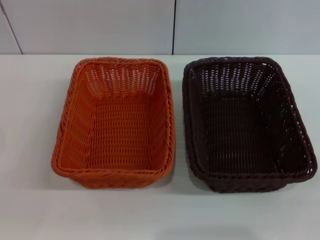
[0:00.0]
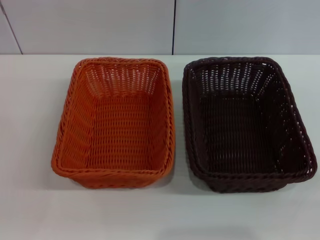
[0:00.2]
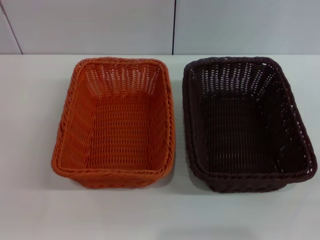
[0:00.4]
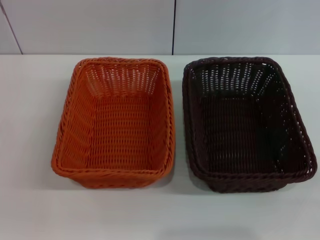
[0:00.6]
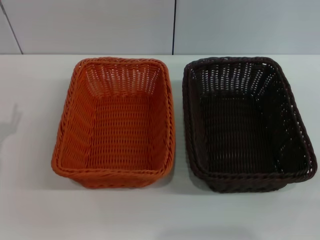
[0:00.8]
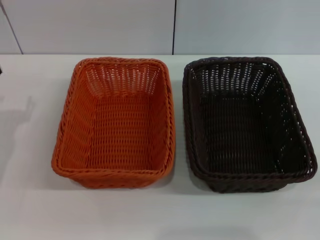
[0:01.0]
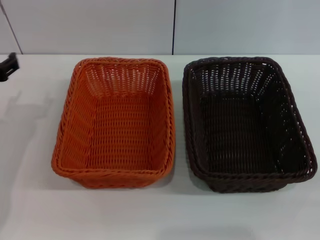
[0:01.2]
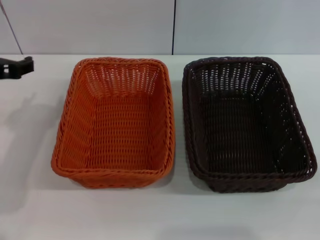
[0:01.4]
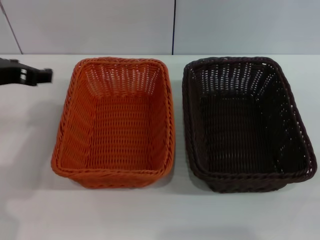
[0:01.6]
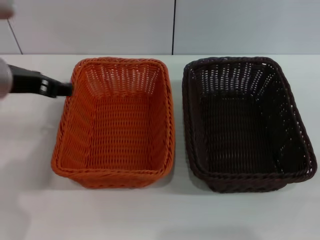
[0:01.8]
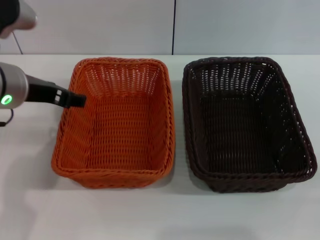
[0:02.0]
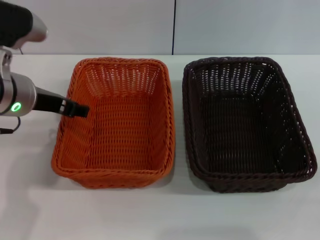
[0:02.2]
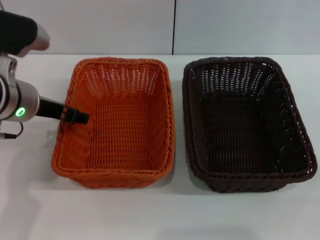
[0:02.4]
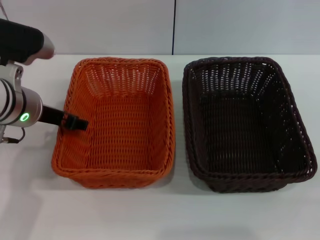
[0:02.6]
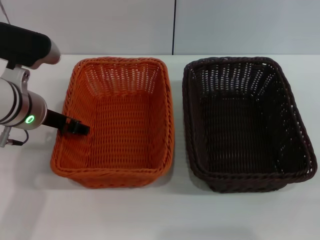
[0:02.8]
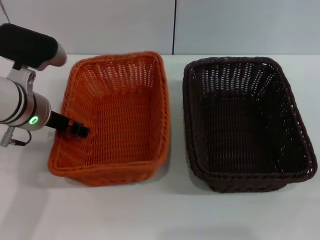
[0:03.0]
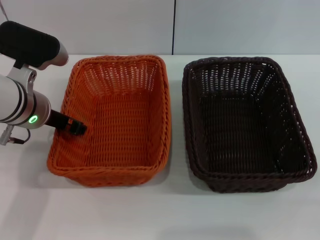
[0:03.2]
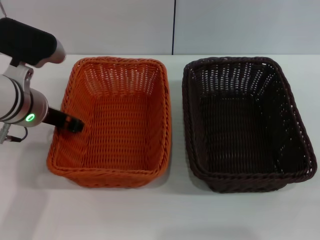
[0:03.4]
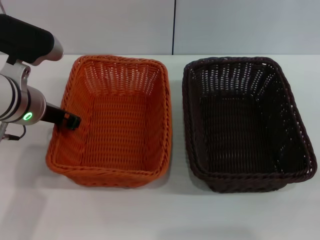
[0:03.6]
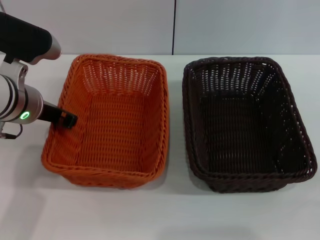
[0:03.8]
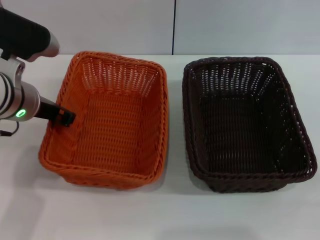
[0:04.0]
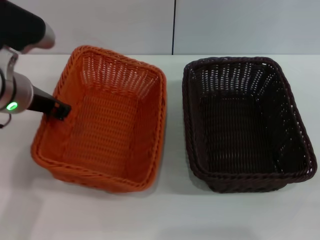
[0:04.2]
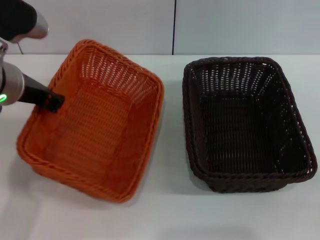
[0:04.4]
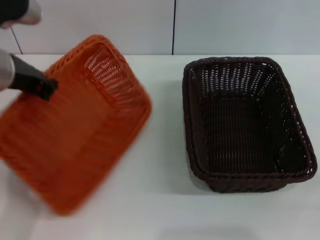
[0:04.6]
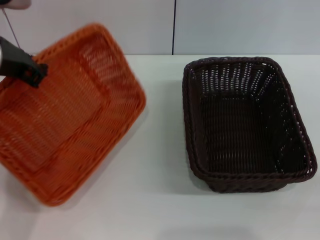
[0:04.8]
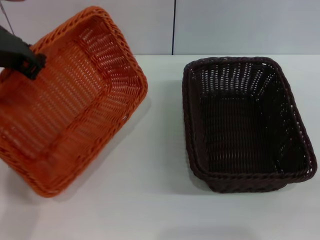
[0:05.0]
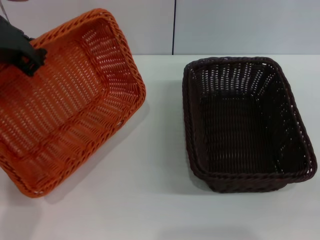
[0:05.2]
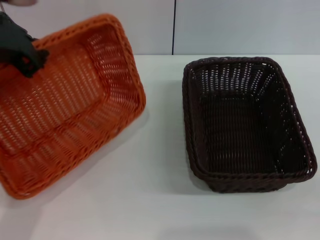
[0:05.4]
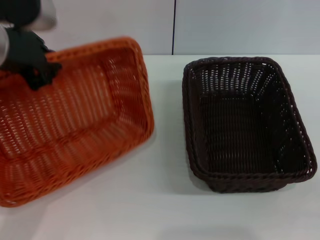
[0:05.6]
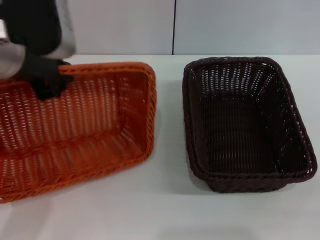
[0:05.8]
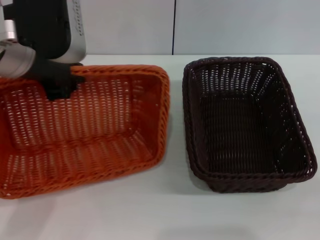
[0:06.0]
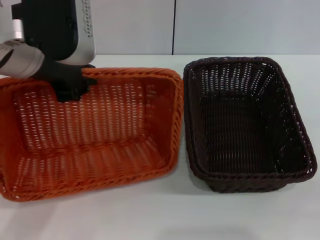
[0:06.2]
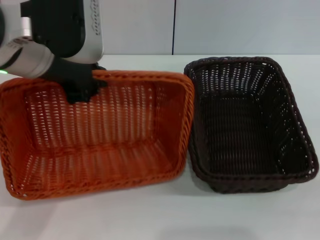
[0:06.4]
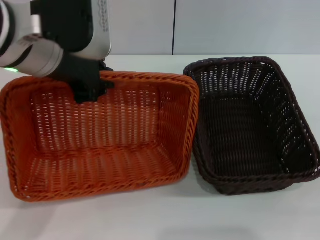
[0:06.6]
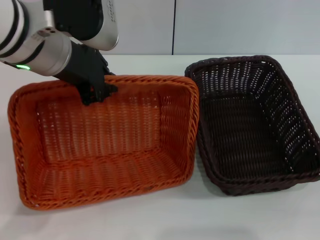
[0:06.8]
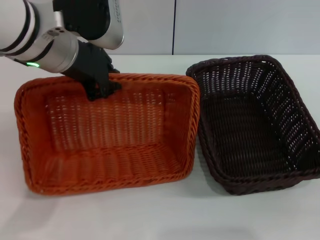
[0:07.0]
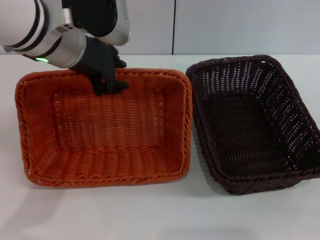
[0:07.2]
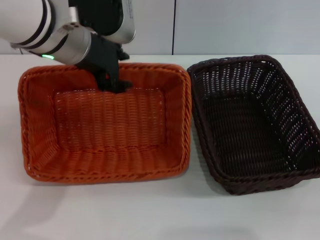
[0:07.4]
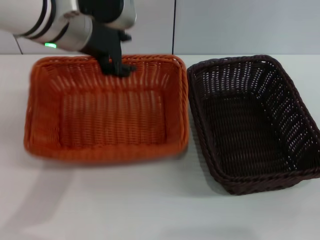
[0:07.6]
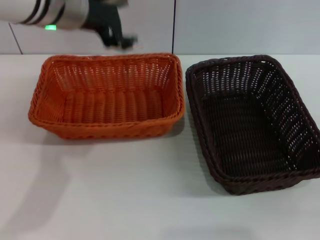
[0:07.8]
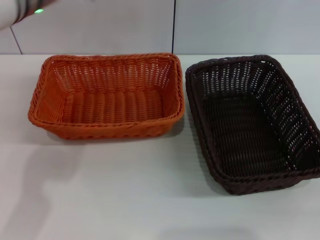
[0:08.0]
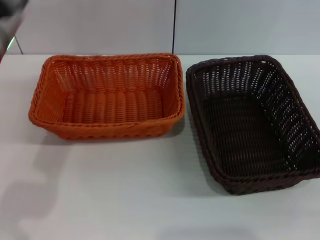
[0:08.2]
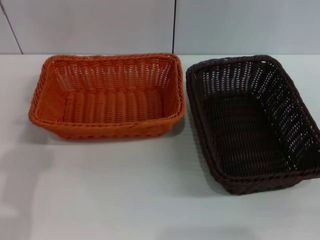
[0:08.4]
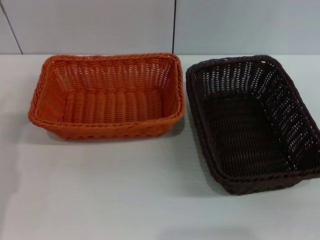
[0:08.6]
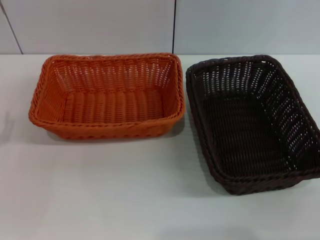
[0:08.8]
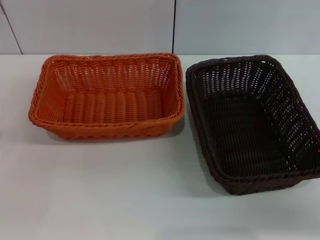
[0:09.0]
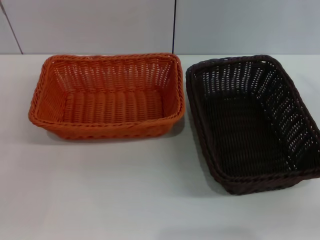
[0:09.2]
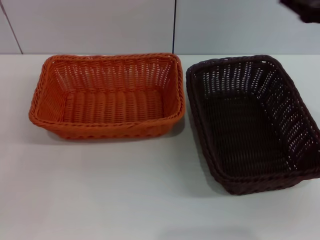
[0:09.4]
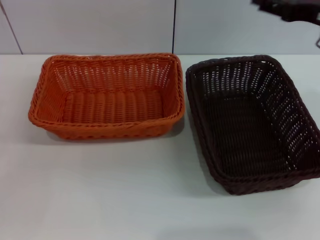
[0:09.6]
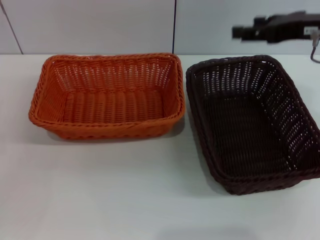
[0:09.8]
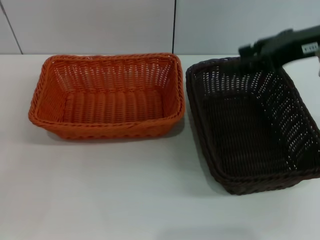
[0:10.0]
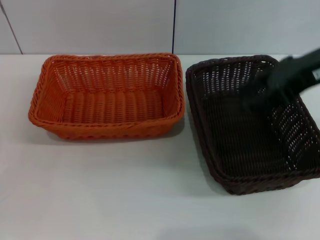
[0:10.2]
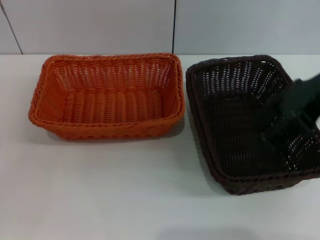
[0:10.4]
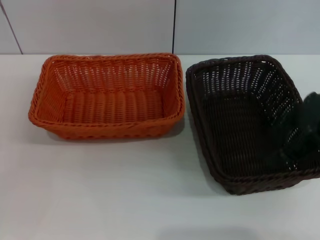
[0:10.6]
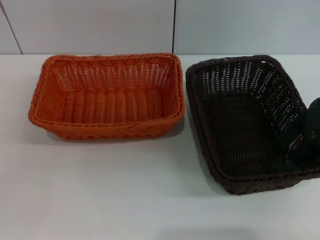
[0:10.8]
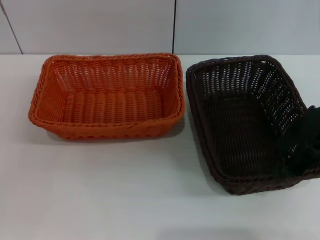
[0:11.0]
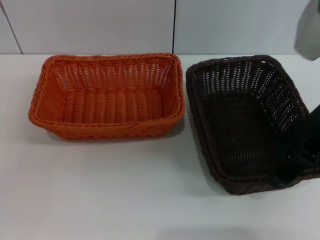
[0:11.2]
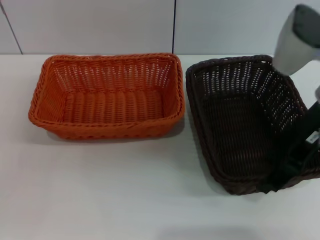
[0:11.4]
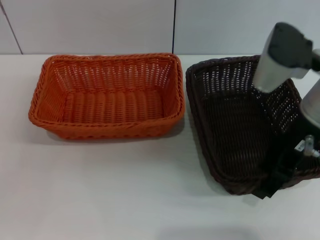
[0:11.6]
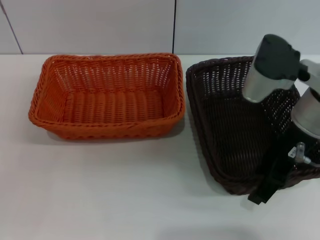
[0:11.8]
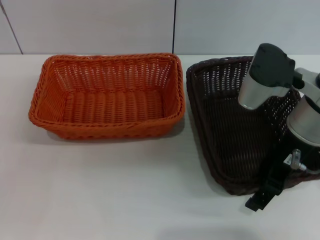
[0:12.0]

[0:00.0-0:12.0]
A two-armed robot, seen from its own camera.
Step, 0:00.0 to 0:04.4: Pick up the light basket with the left gripper.
Step, 0:04.6 to 0:07.6: Place the light basket in the center of view with the left gripper.
0:00.0 to 0:01.6: The left gripper goes approximately 25 cm upward, forward and to the right.
0:01.6 to 0:03.0: The left gripper goes roughly 5 cm downward.
0:03.0 to 0:04.4: The left gripper moves upward, roughly 5 cm, and closes its fingers.
0:04.4 to 0:06.0: The left gripper shifts some 5 cm upward.
0:06.0 to 0:07.6: The left gripper moves forward, roughly 5 cm, and opens up.
0:07.6 to 0:09.0: The right gripper shifts approximately 10 cm forward and upward, while the left gripper shifts roughly 35 cm downward, to the left and backward, and opens its fingers.
0:09.0 to 0:10.4: The right gripper goes some 20 cm upward, to the left and forward.
0:10.4 to 0:12.0: The right gripper goes approximately 10 cm downward and to the left.

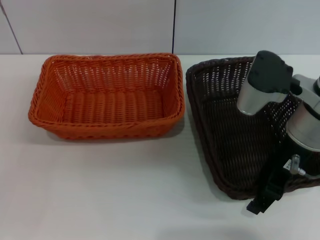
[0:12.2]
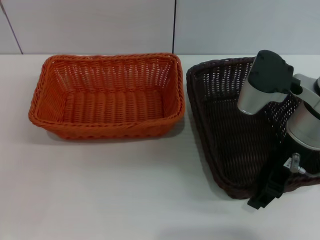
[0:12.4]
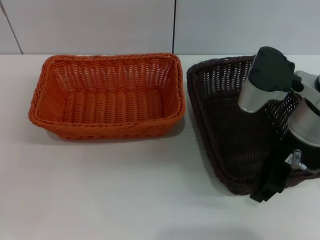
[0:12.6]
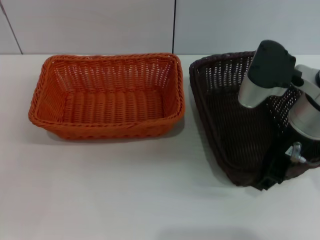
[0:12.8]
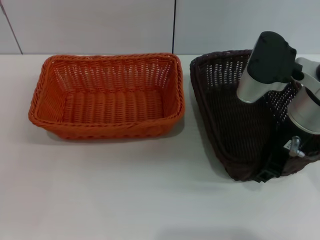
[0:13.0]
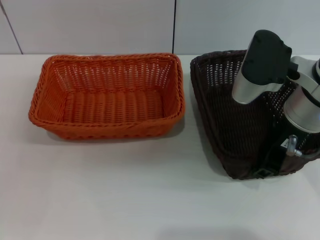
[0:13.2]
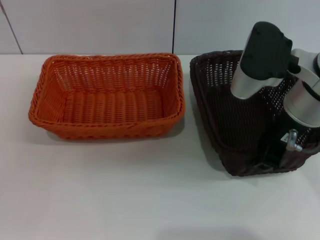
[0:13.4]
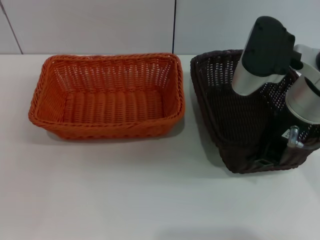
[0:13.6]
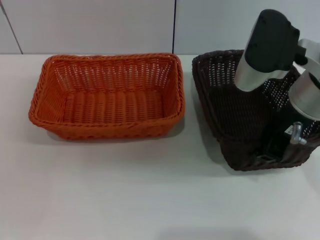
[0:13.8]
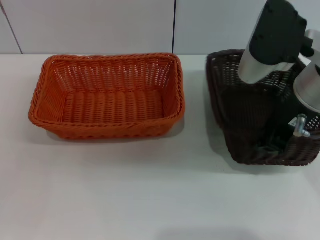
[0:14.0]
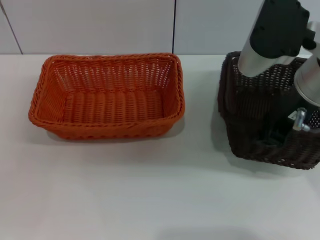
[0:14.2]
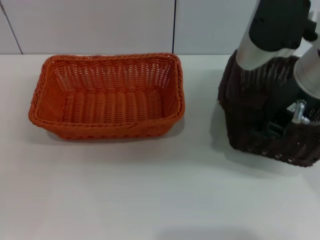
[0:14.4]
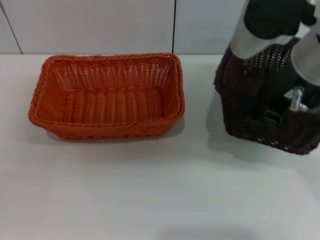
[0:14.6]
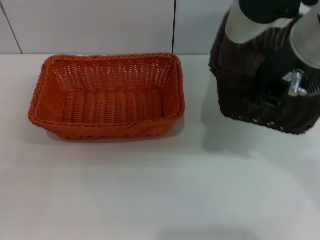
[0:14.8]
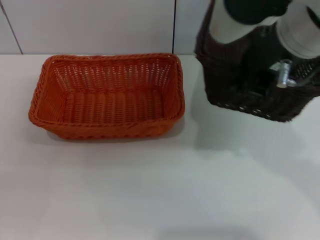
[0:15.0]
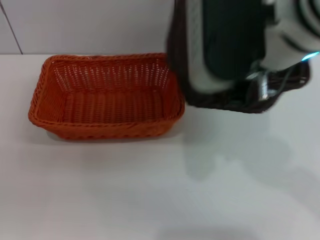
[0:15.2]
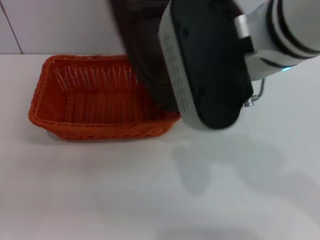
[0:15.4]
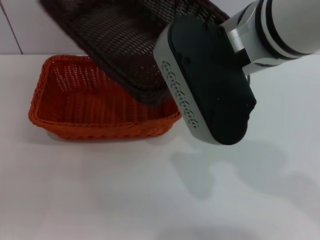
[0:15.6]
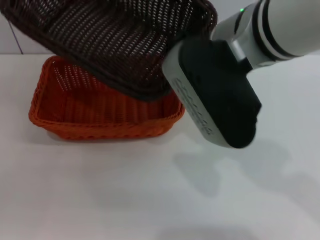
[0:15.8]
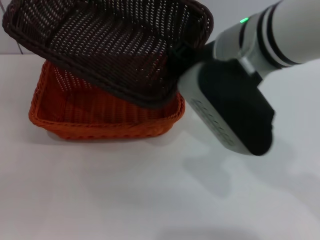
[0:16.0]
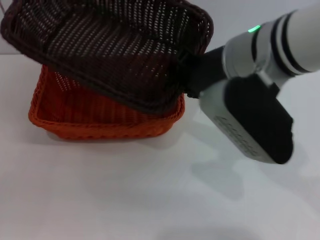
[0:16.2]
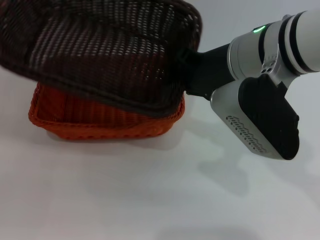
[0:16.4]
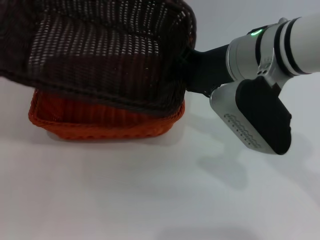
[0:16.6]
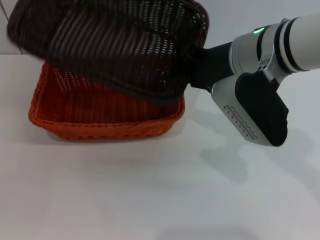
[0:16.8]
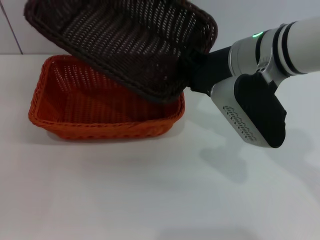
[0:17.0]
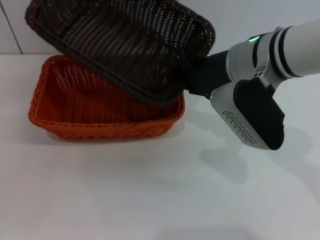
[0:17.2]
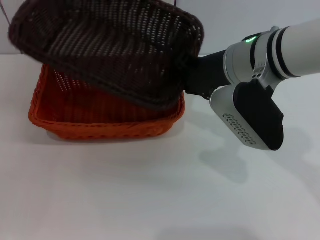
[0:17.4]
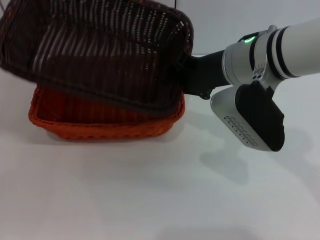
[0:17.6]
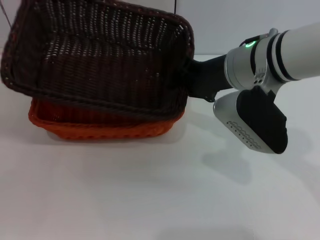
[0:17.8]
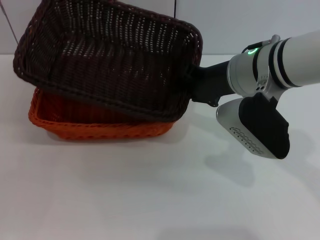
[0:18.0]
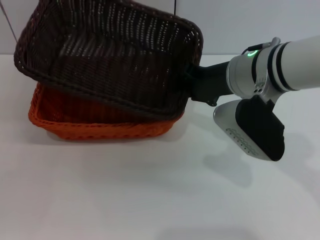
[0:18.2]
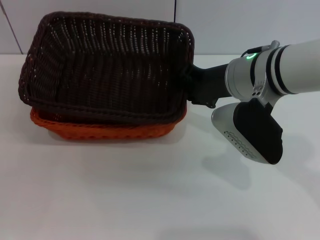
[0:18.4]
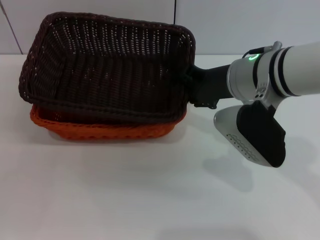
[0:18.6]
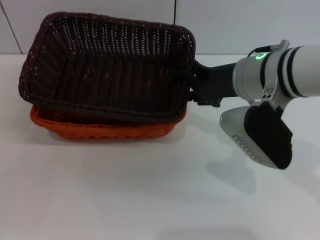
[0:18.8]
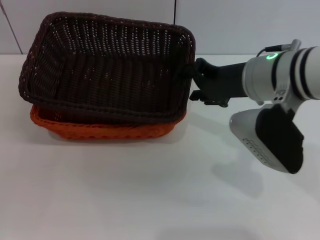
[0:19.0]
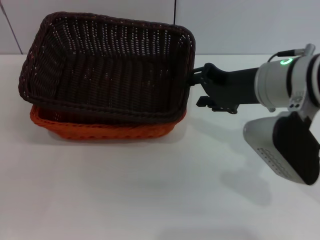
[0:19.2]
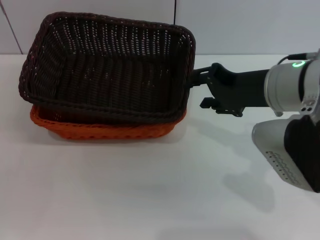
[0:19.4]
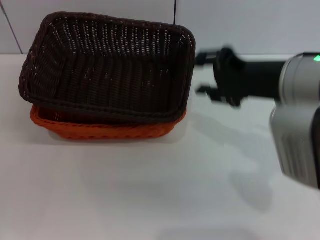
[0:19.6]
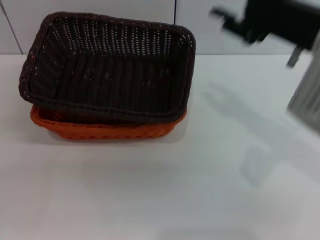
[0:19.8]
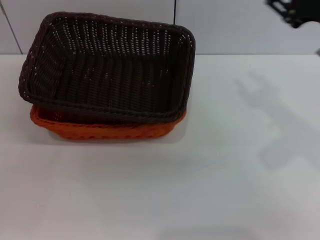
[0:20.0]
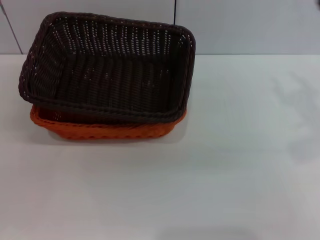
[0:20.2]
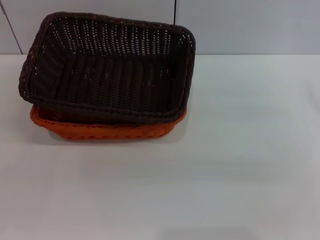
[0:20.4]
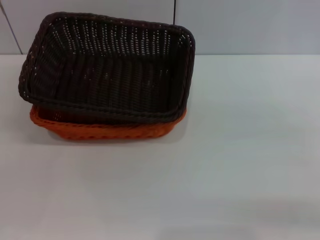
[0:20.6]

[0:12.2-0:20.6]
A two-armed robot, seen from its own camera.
Step, 0:13.6 to 0:18.6: Place the dark basket on the light basket with the right gripper.
0:12.2 to 0:13.6: The right gripper closes.
0:13.6 to 0:15.0: The right gripper shifts some 10 cm upward.
0:15.0 to 0:16.4: The right gripper moves downward, roughly 5 cm.
0:16.4 to 0:17.8: The right gripper moves approximately 5 cm.
0:17.8 to 0:19.2: The right gripper ends up some 5 cm from where it was, and opens up.
0:19.2 to 0:20.6: The right gripper travels to the right by about 25 cm.
